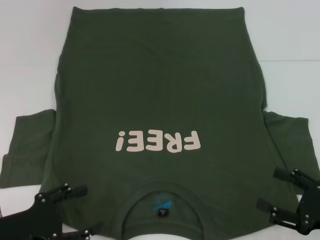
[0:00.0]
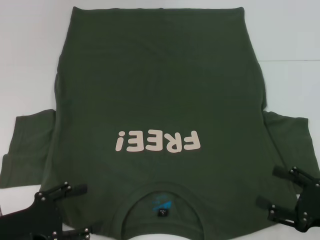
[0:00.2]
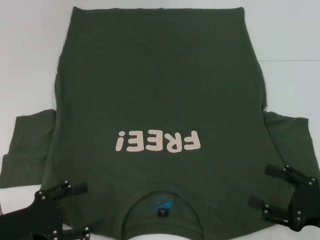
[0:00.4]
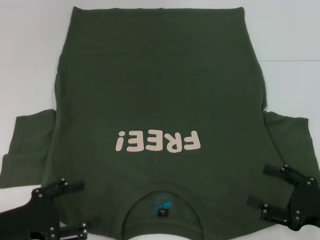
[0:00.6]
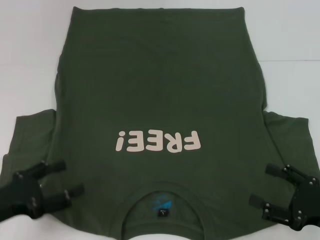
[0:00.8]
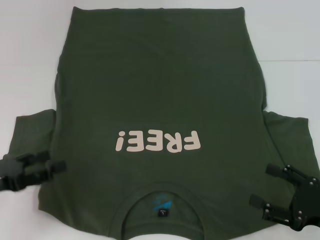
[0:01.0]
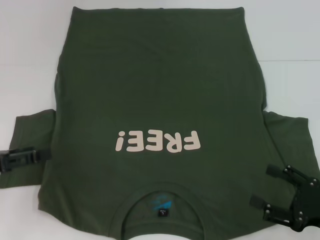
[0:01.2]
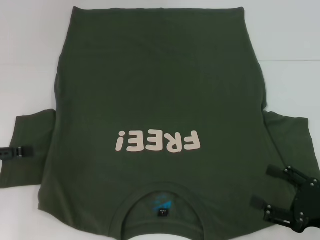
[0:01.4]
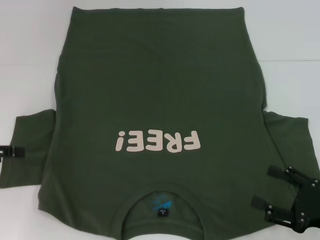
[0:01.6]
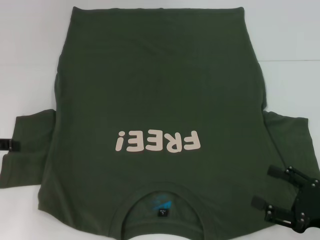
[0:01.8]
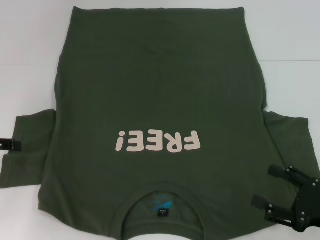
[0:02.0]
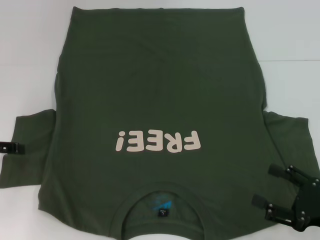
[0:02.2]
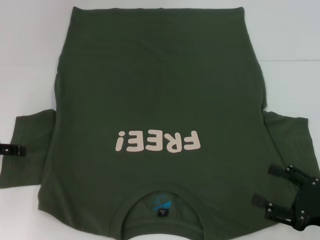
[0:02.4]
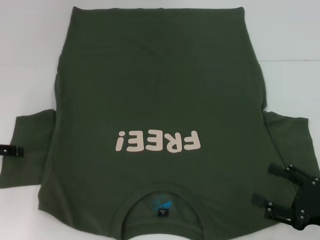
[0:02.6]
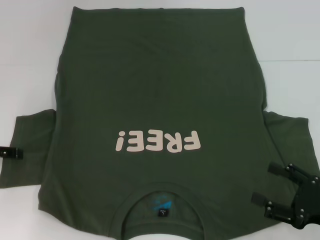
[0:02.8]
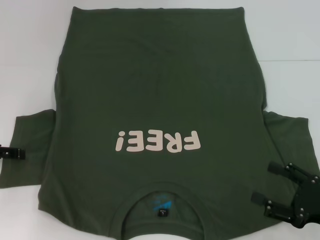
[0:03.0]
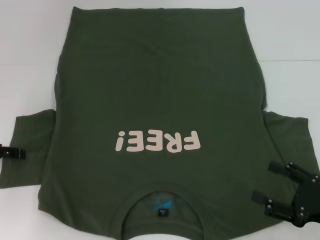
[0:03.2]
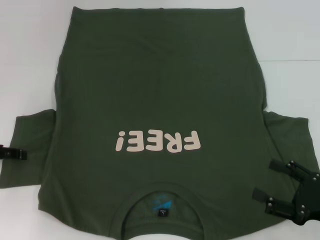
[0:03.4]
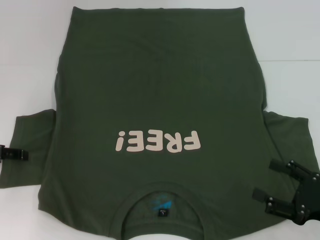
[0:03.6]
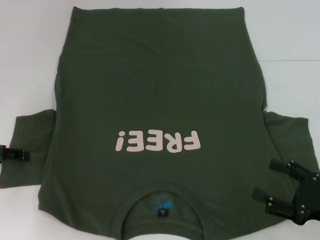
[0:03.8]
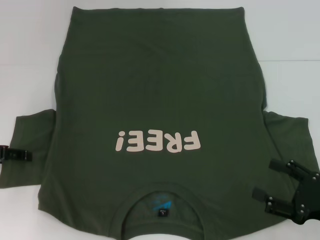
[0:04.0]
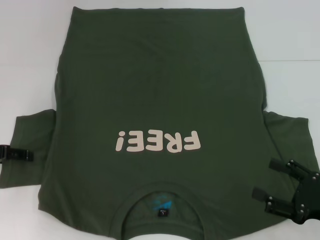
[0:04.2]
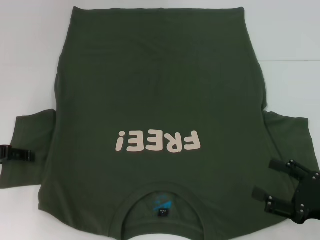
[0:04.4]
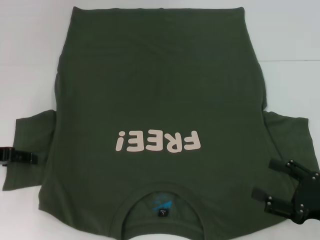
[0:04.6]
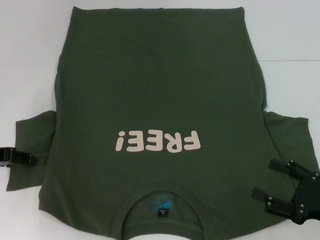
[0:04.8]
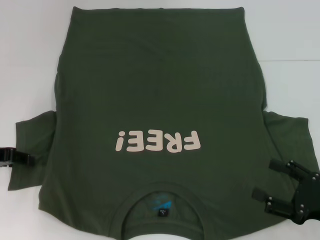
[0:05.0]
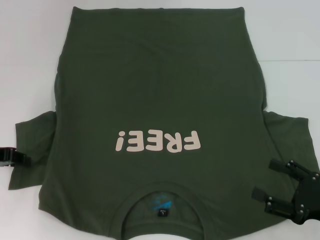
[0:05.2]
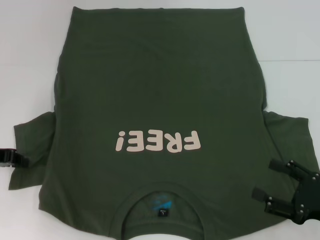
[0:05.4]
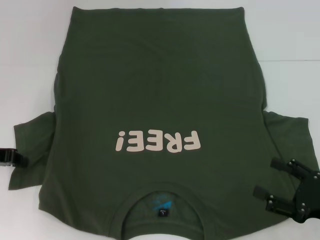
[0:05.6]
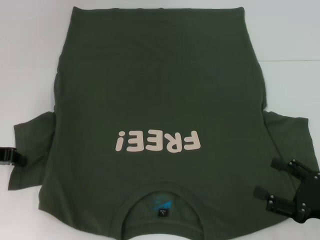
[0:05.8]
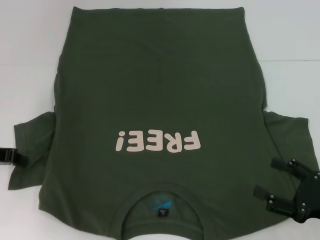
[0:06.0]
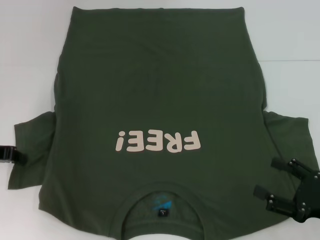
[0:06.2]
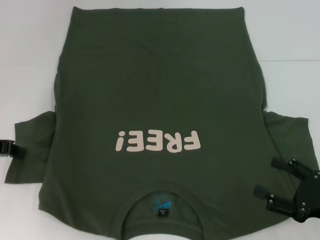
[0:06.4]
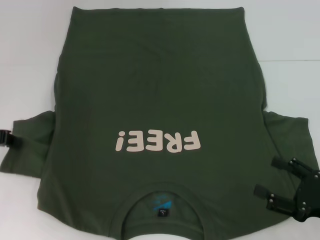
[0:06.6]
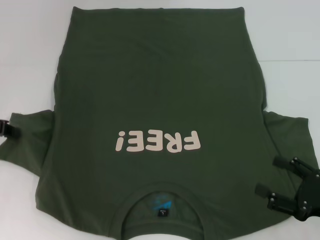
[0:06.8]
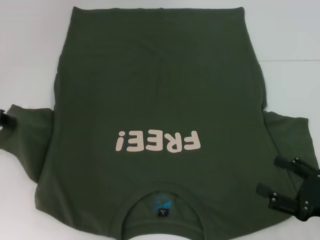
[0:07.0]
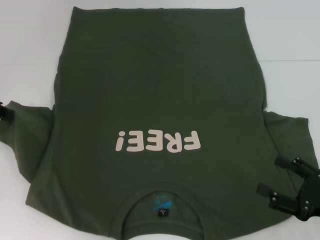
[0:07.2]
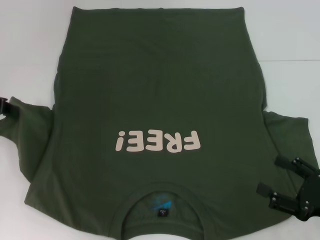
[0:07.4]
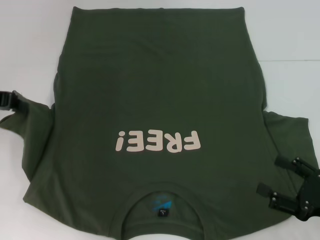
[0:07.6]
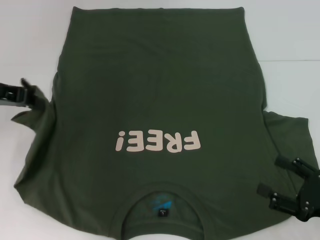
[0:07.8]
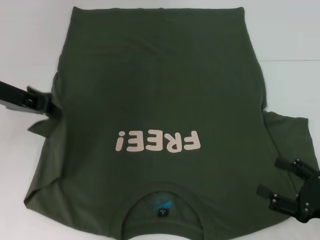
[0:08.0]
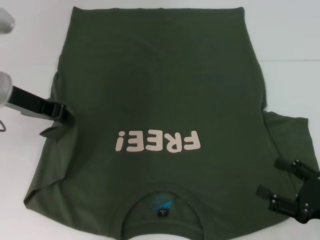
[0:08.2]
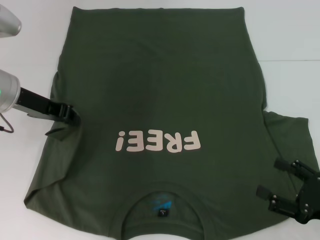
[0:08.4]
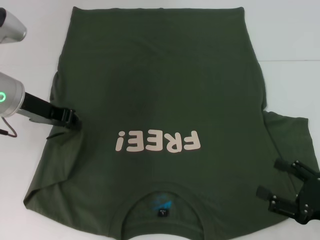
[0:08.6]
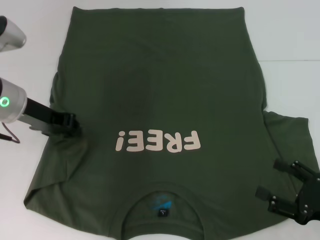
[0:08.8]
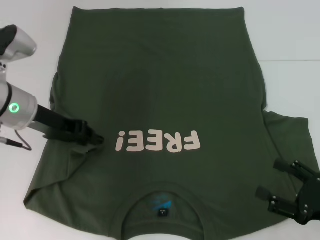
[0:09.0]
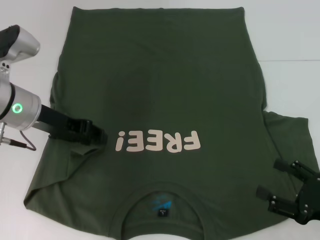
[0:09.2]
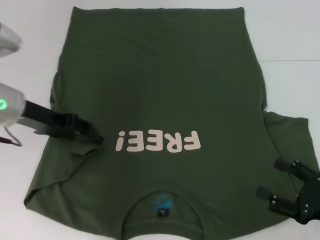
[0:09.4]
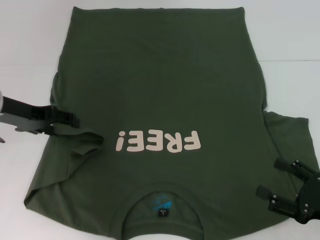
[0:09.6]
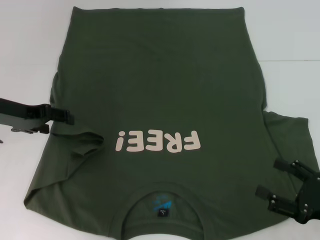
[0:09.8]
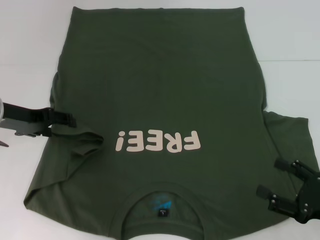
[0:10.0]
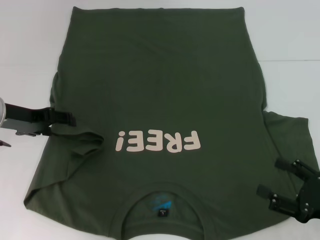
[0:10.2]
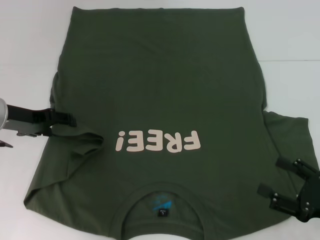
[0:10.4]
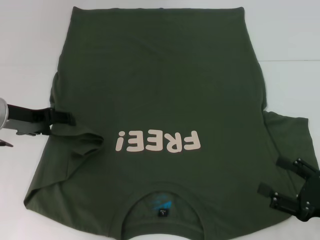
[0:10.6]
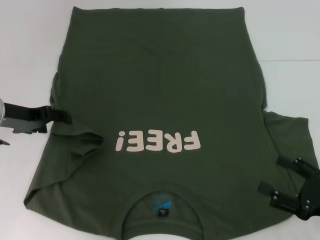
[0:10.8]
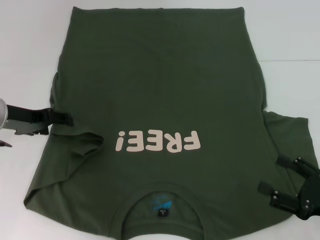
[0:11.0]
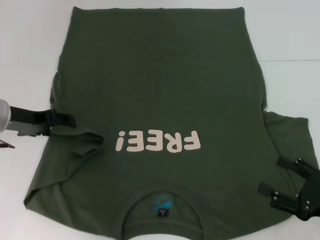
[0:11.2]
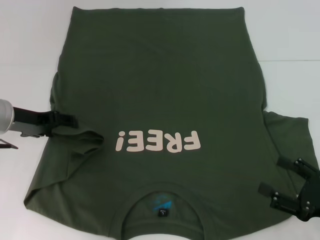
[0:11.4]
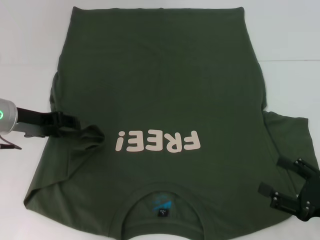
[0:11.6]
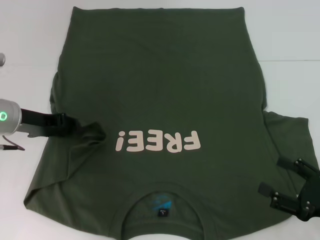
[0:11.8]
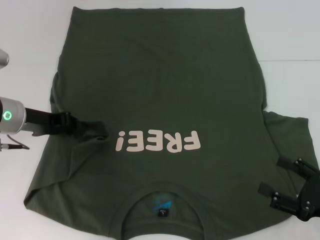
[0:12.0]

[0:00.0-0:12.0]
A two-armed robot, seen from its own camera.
0:00.0 to 0:01.6: The left gripper goes about 15 cm forward, to the left and upward.
0:04.4 to 0:06.0: The left gripper closes its fingers.
0:06.0 to 0:07.6: The left gripper is displaced upward by approximately 10 cm.
0:07.6 to 0:09.0: The left gripper goes about 10 cm to the right.
0:09.0 to 0:10.4: The left gripper moves to the left, some 5 cm, and opens its fingers.
0:10.4 to 0:12.0: The left gripper closes up.

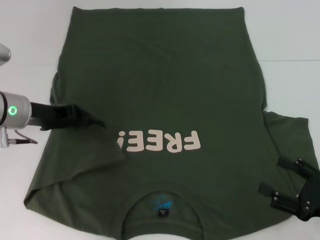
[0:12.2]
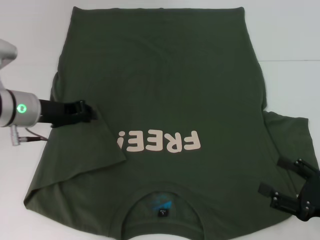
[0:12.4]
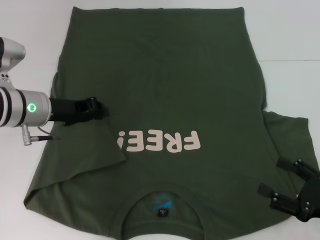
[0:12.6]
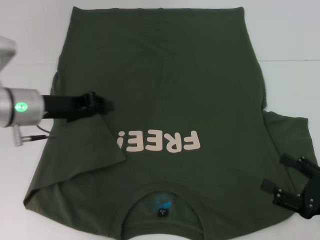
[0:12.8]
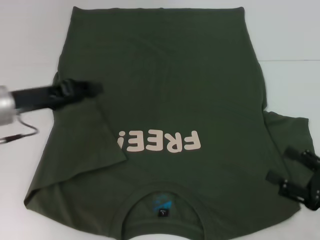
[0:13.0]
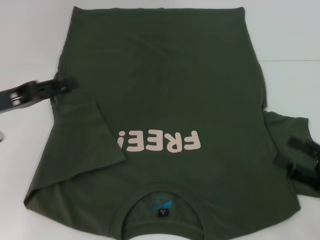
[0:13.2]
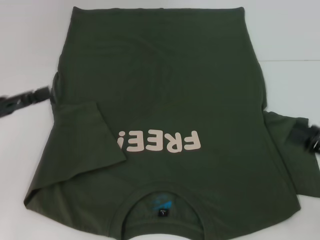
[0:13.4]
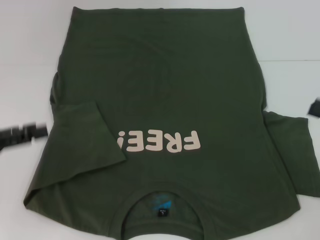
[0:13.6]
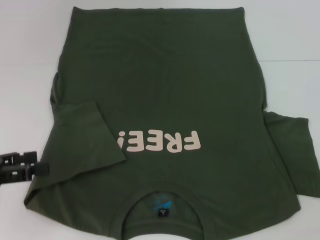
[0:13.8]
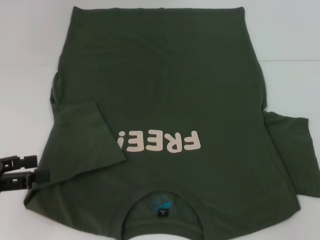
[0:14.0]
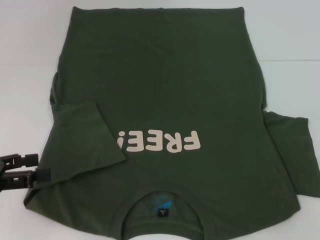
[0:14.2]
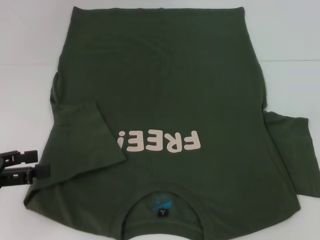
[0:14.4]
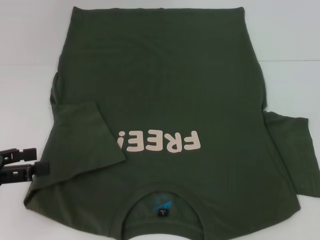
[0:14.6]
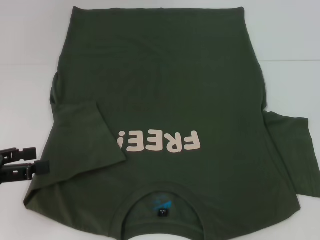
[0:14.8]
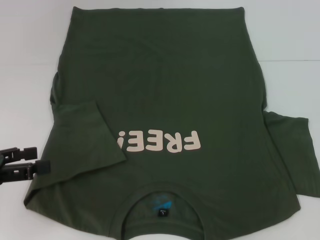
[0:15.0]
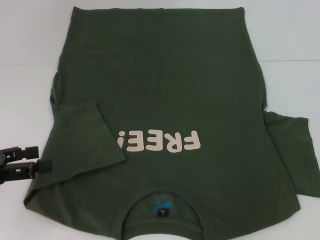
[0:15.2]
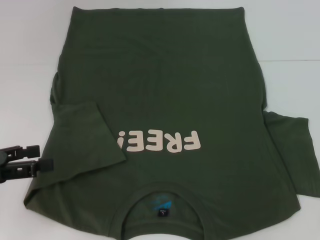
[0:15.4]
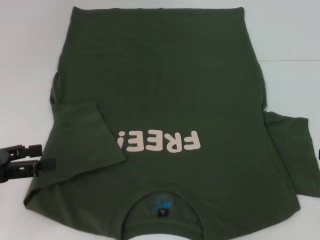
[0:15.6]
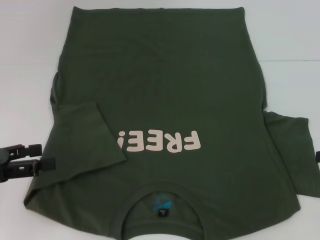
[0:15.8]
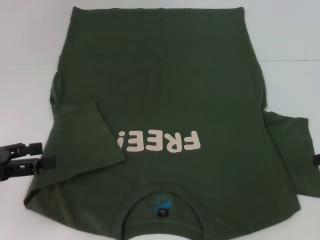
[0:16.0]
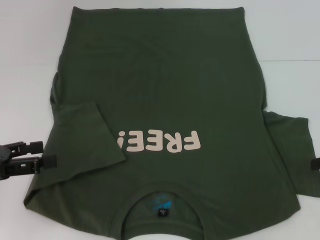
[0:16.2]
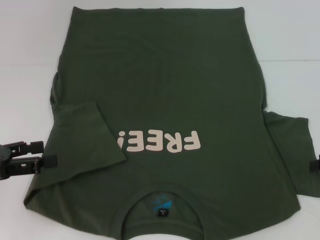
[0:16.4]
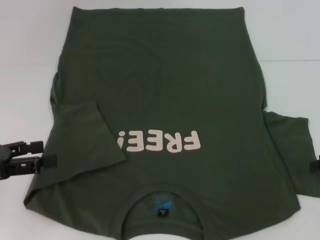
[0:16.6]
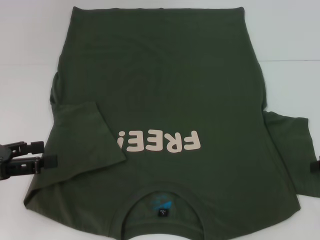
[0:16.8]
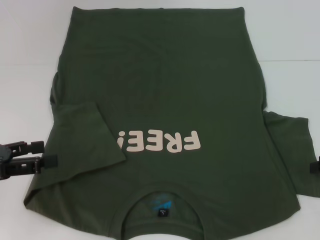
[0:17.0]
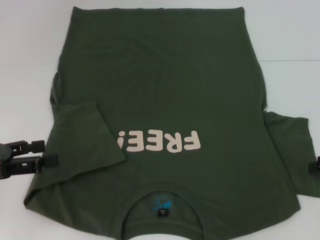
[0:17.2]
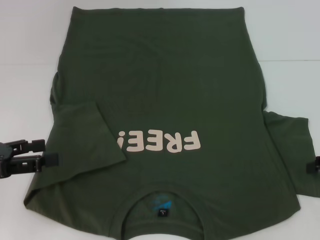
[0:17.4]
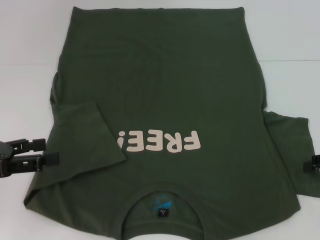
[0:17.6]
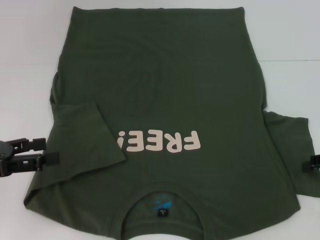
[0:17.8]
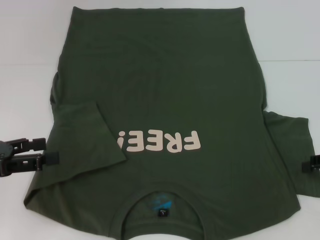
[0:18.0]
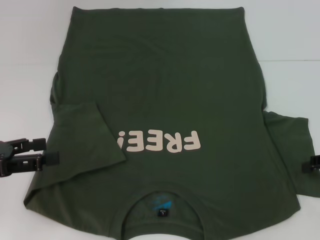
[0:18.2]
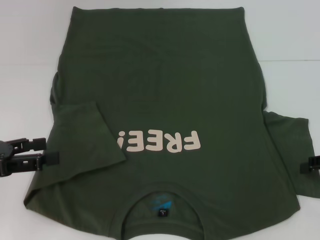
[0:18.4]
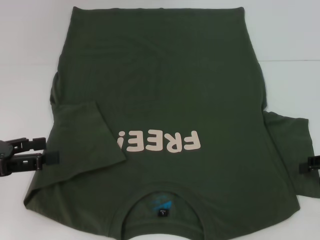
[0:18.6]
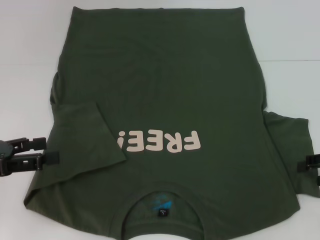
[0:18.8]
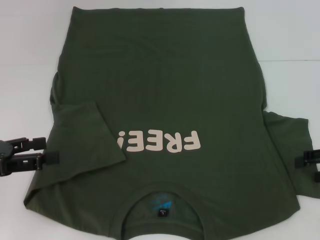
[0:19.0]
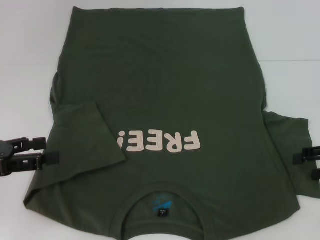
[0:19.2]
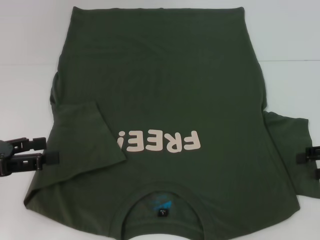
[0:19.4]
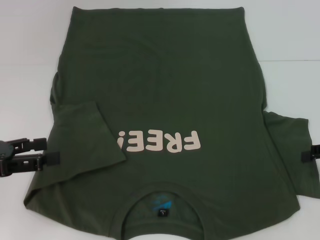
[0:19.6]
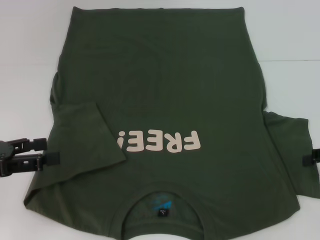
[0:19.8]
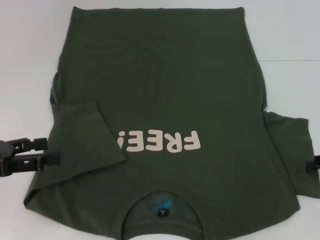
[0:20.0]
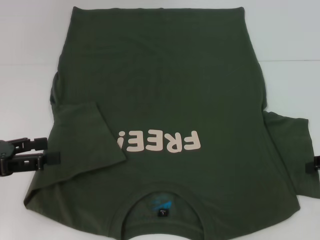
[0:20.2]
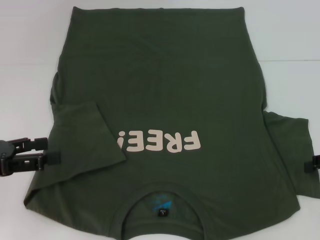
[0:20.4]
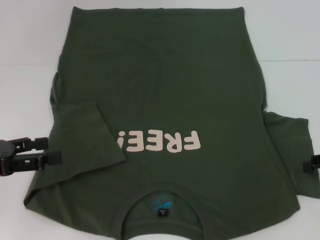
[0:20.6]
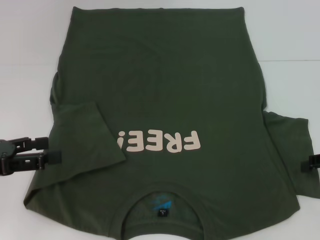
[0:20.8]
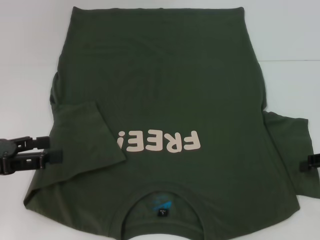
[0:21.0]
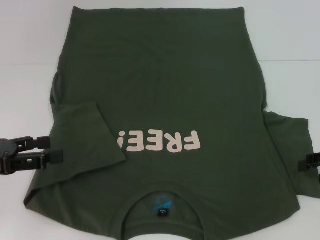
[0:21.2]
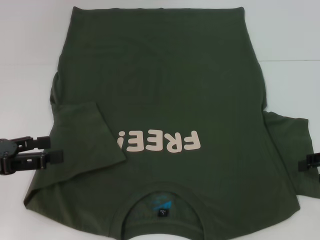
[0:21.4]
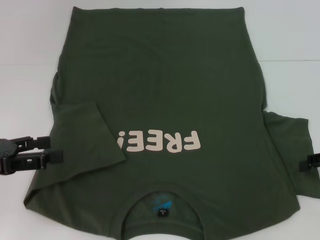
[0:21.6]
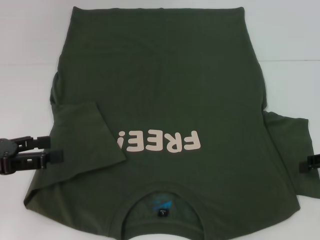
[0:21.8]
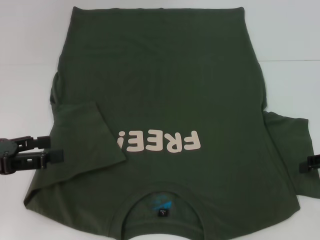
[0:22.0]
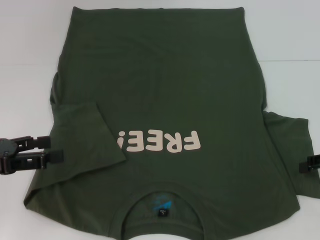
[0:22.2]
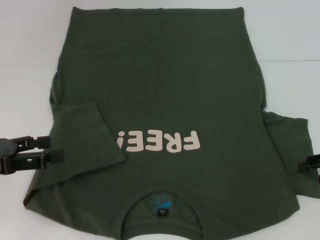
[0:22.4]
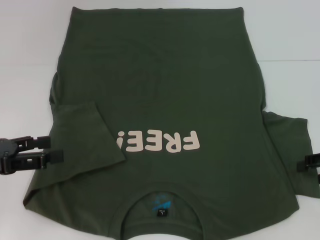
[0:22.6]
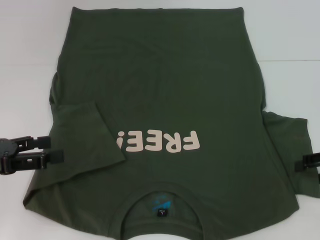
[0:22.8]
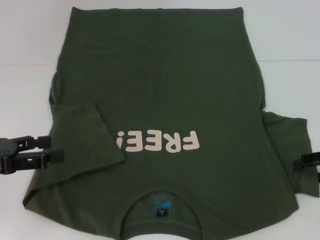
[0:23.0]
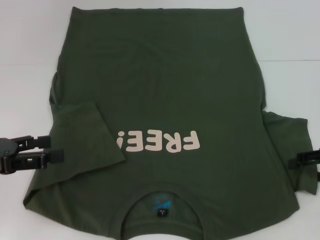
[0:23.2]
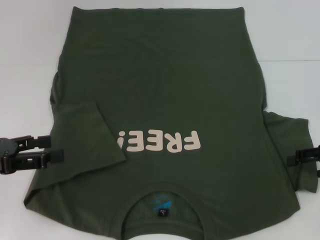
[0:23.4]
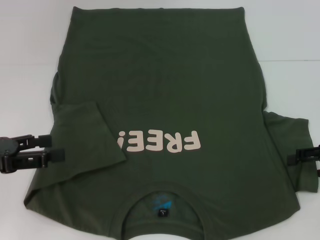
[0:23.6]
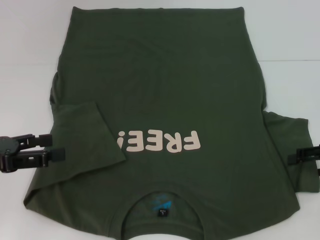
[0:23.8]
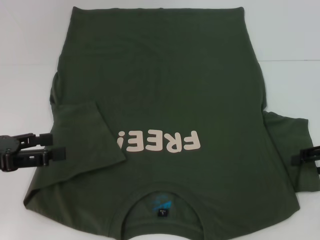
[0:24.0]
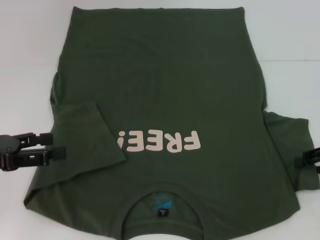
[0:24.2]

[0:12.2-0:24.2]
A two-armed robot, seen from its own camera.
0:12.2 to 0:13.8: The left gripper is displaced backward and to the left by roughly 15 cm, and opens. Meanwhile the right gripper heads upward, forward and to the right, covering some 15 cm.
0:16.6 to 0:18.2: The grippers move only a little.
0:19.8 to 0:21.2: The two grippers keep their place.
0:21.2 to 0:24.2: The two grippers keep their place.
